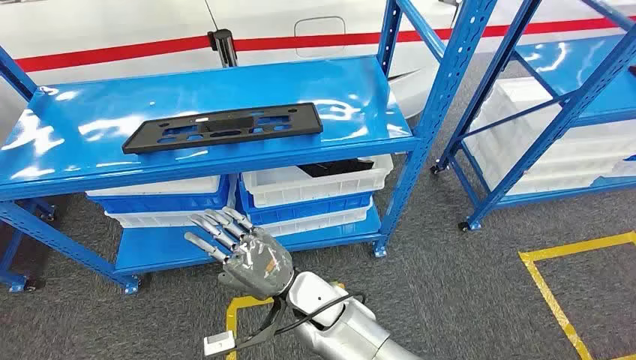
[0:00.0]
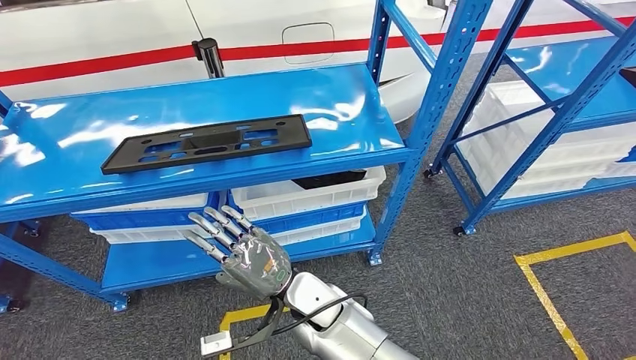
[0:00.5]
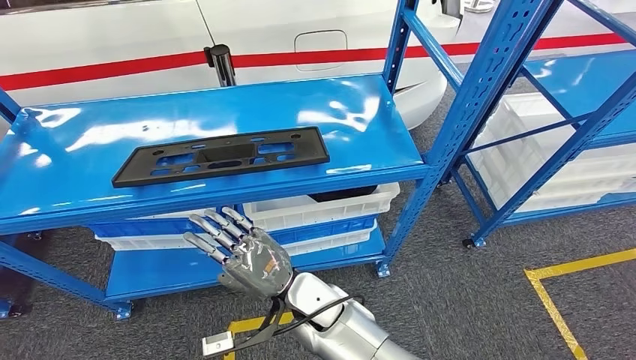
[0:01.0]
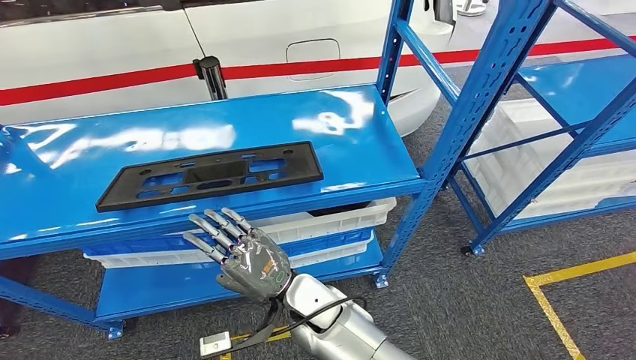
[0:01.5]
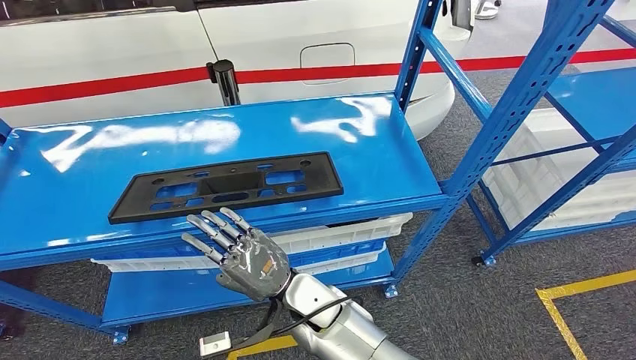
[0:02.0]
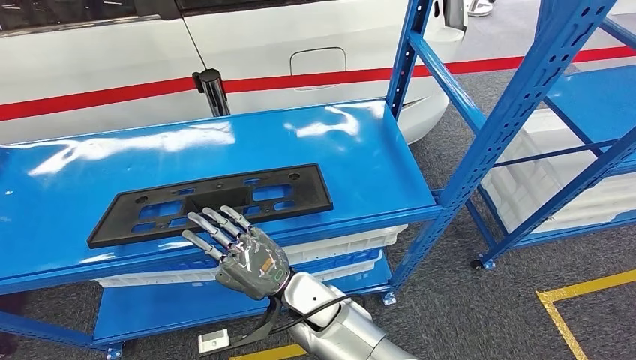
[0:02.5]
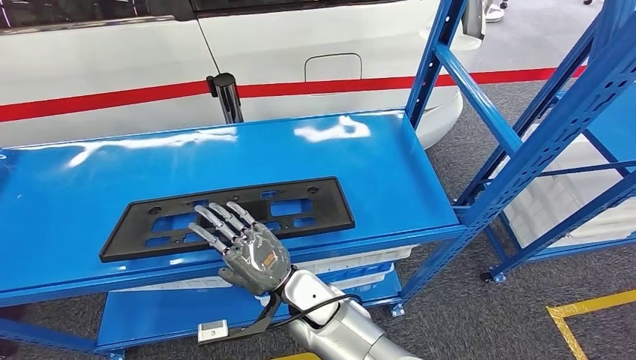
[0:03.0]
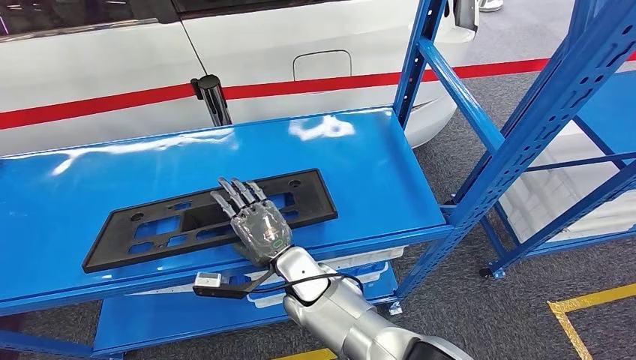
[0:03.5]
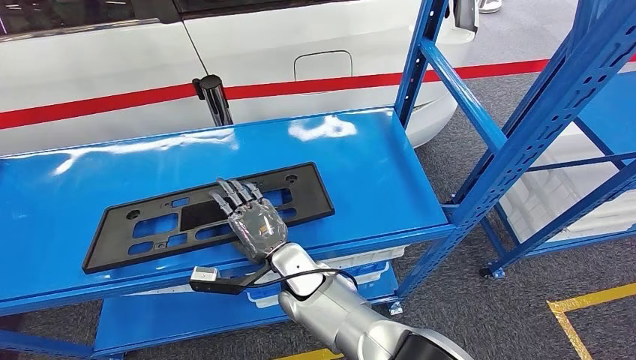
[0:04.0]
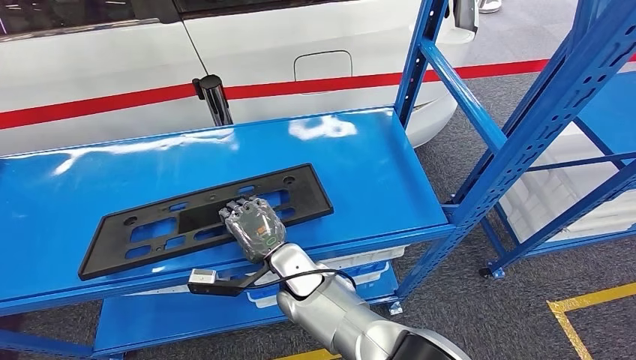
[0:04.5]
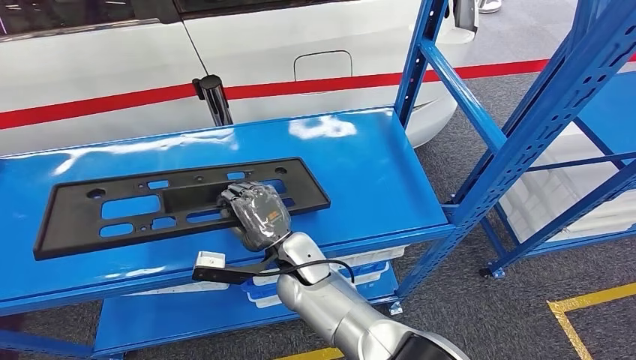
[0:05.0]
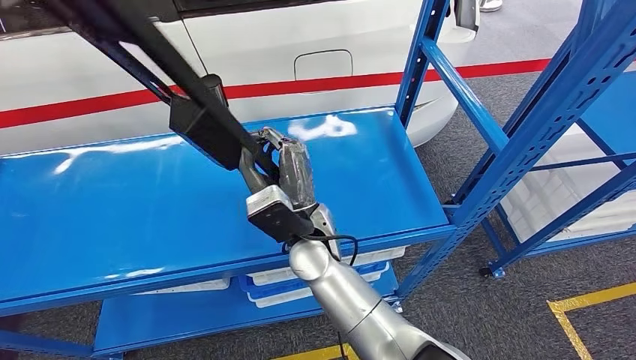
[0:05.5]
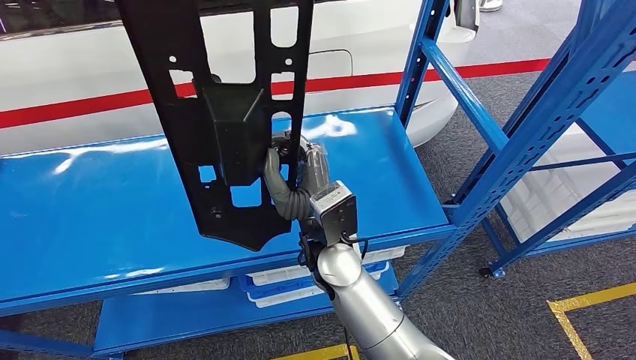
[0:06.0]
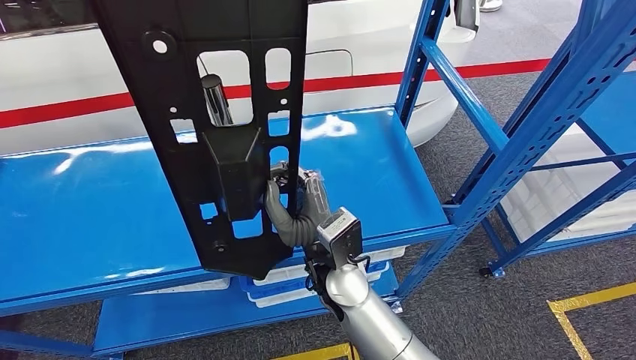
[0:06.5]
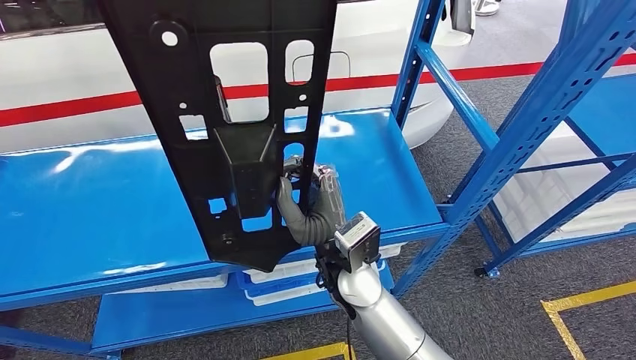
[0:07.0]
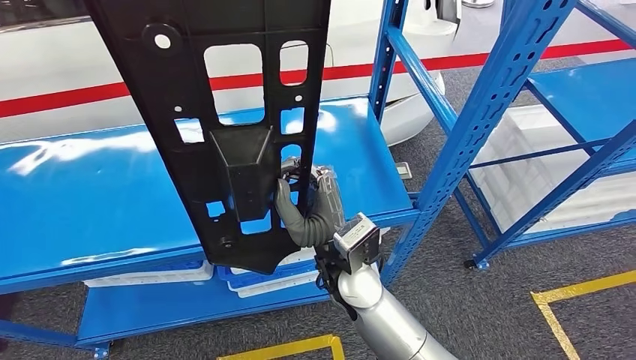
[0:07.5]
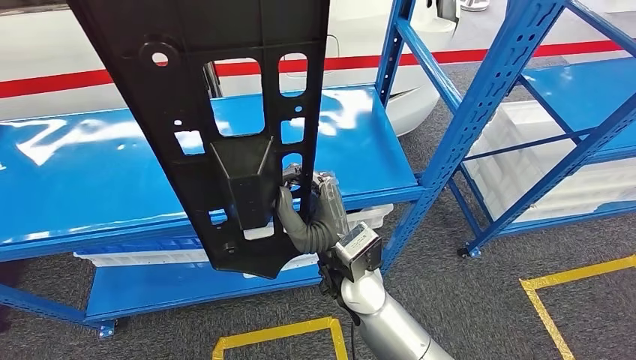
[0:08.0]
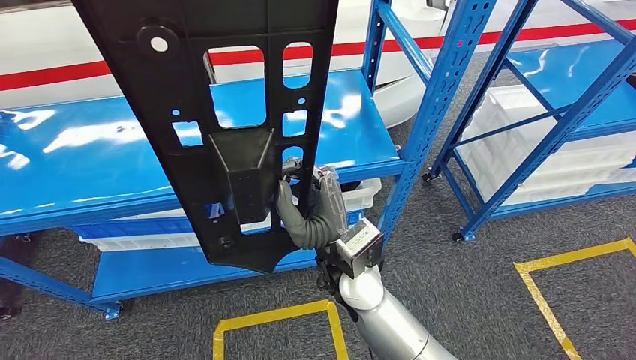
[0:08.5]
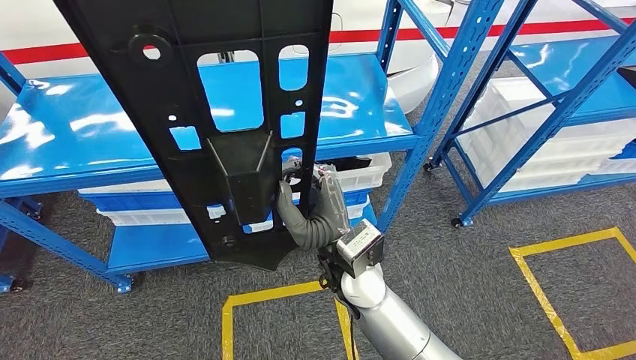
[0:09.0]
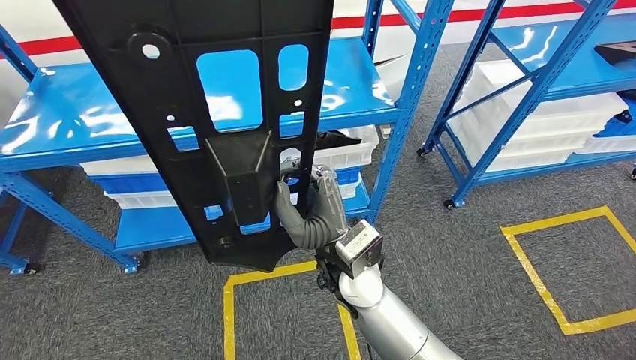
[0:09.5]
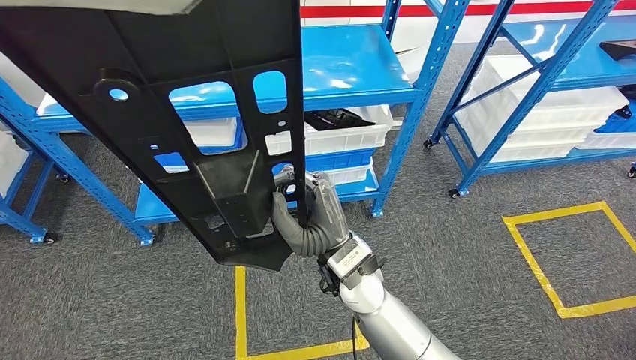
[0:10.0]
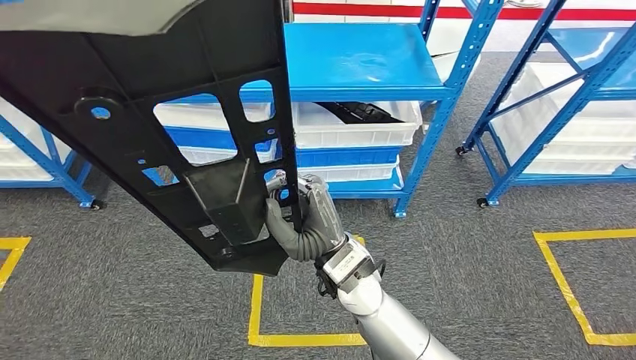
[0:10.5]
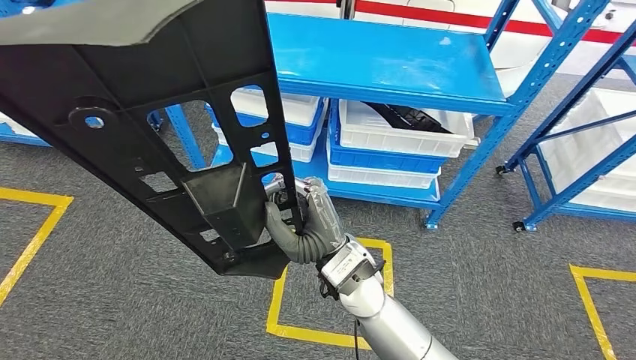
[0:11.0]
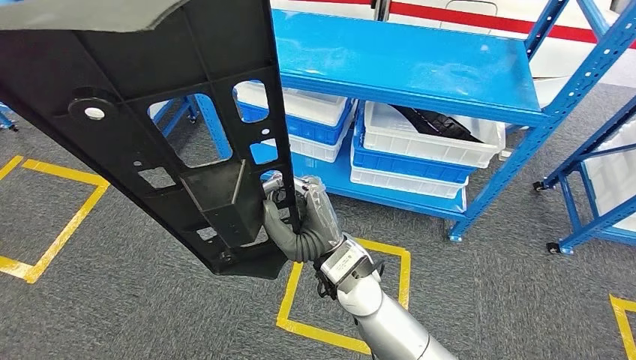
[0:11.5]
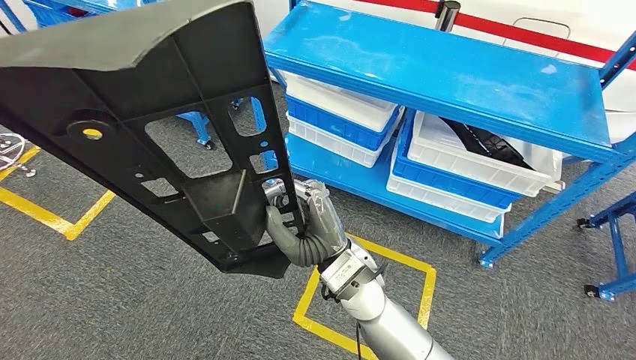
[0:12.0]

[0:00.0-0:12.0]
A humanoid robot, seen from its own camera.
Step, 0:00.0 to 0:11.5: Pick up the large material from the shelf.

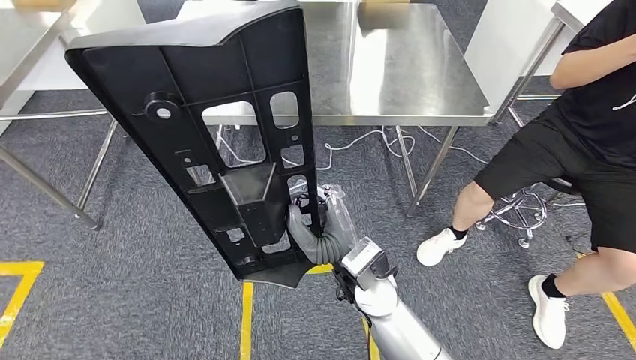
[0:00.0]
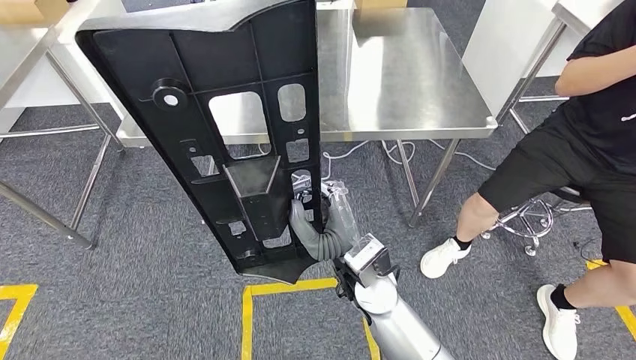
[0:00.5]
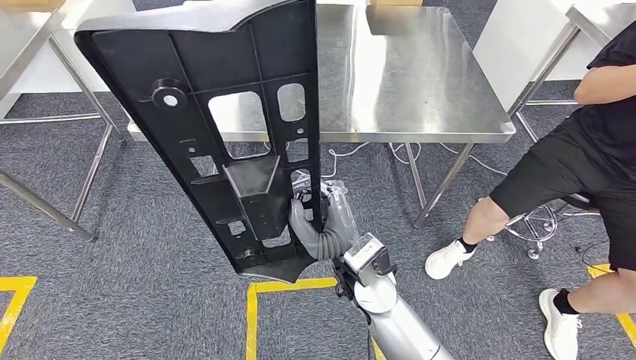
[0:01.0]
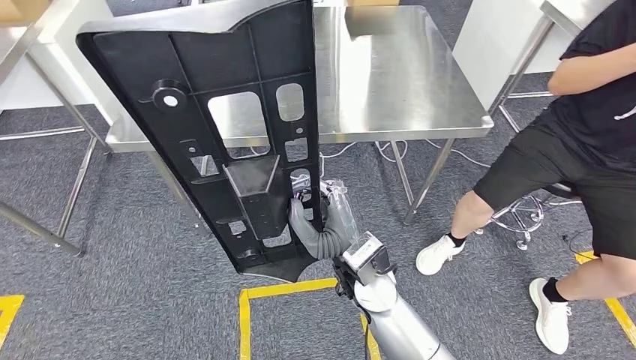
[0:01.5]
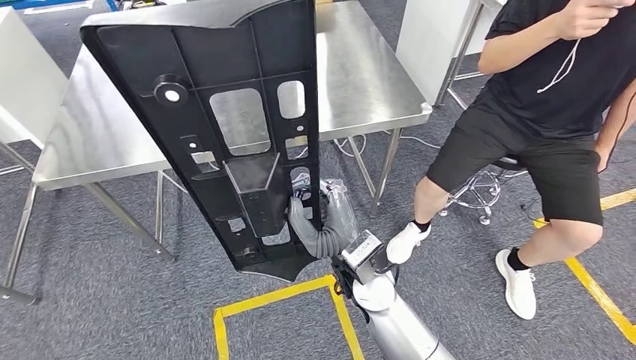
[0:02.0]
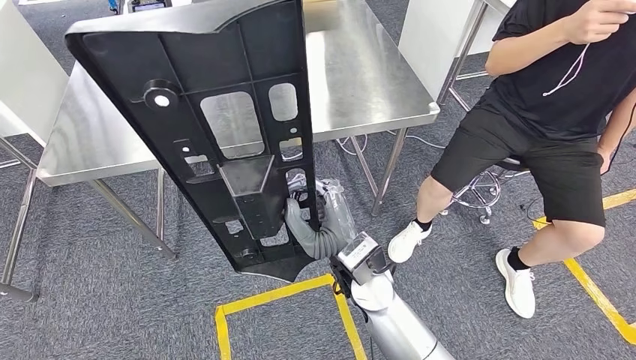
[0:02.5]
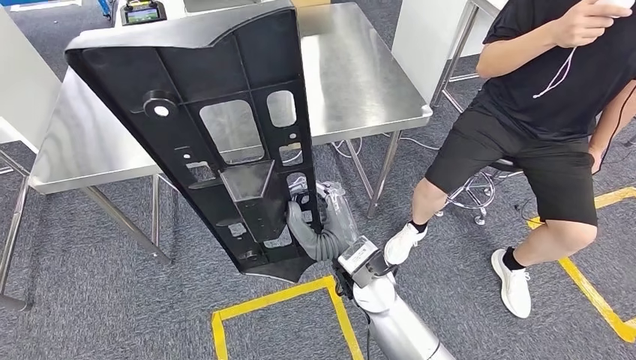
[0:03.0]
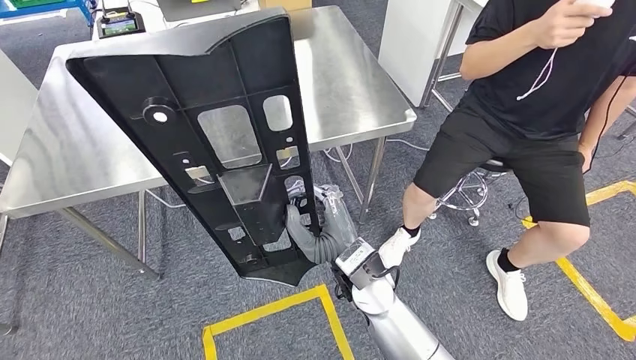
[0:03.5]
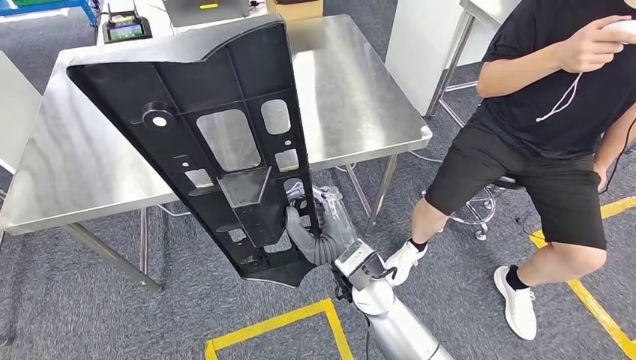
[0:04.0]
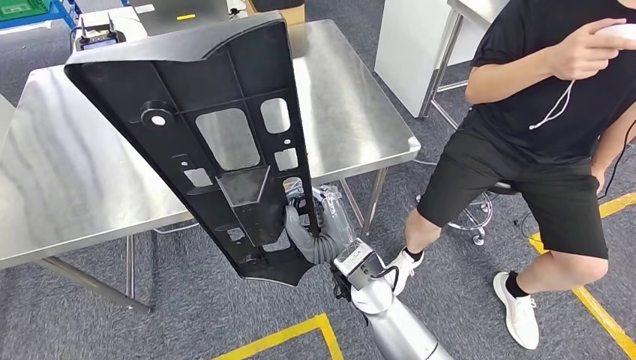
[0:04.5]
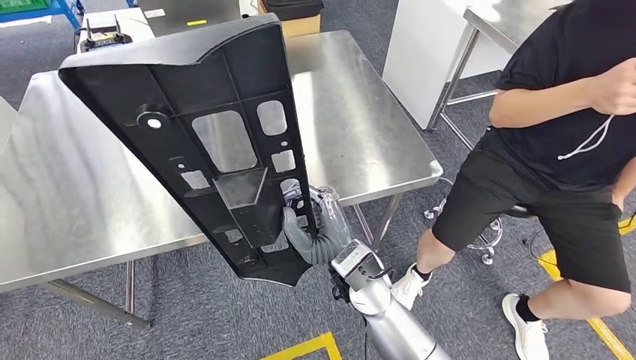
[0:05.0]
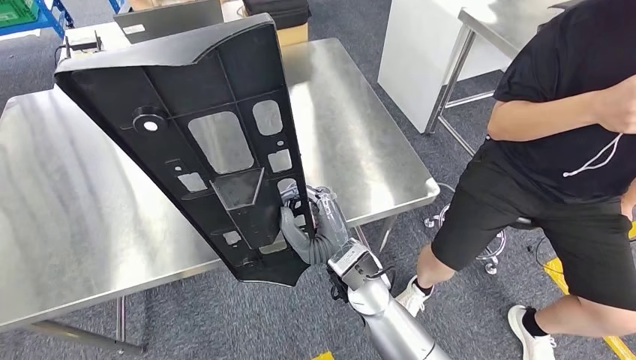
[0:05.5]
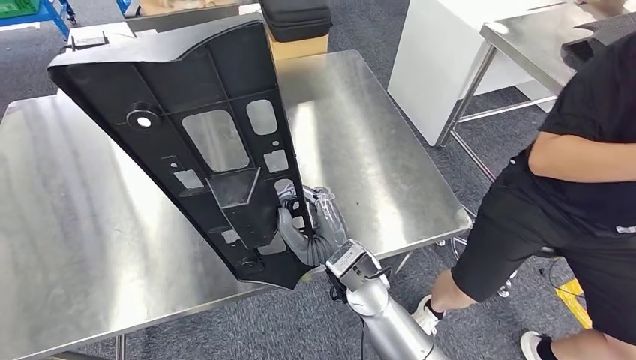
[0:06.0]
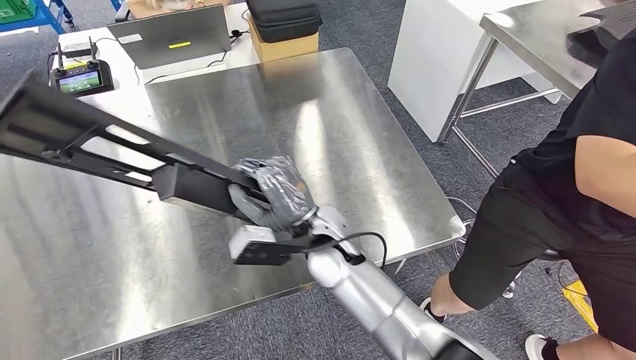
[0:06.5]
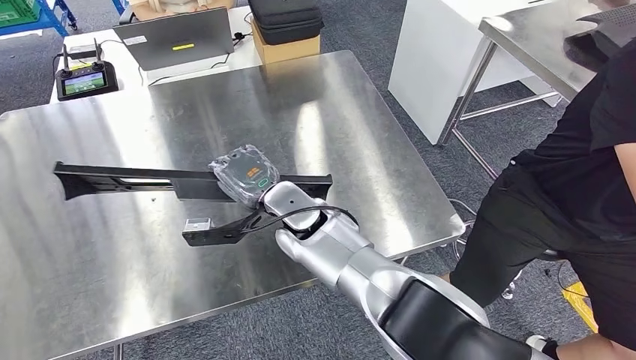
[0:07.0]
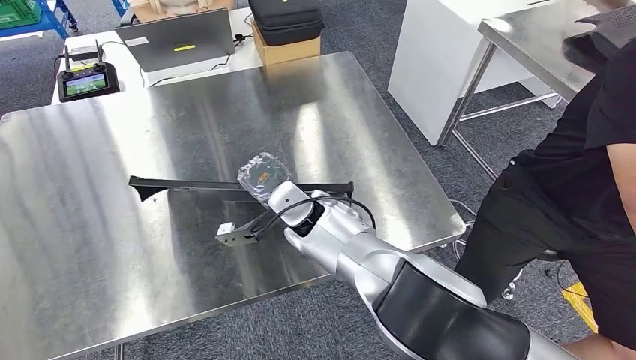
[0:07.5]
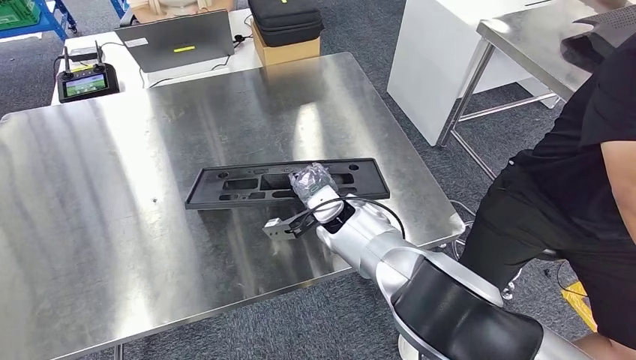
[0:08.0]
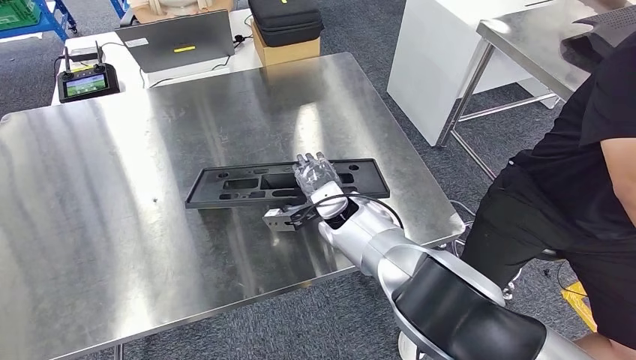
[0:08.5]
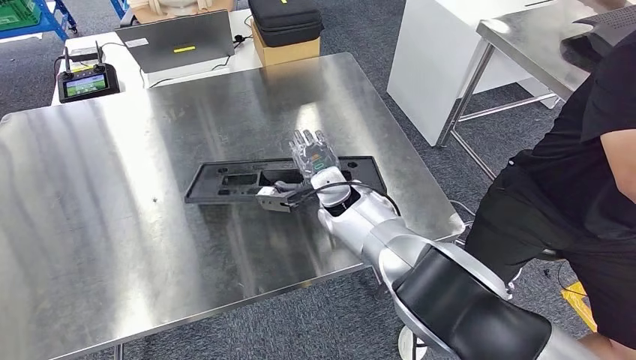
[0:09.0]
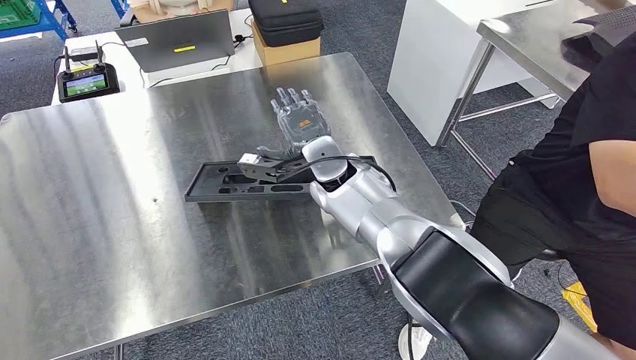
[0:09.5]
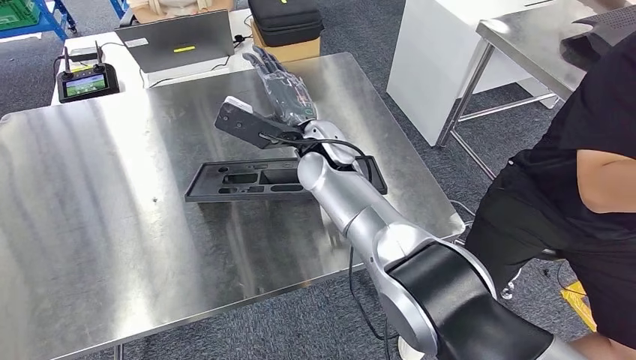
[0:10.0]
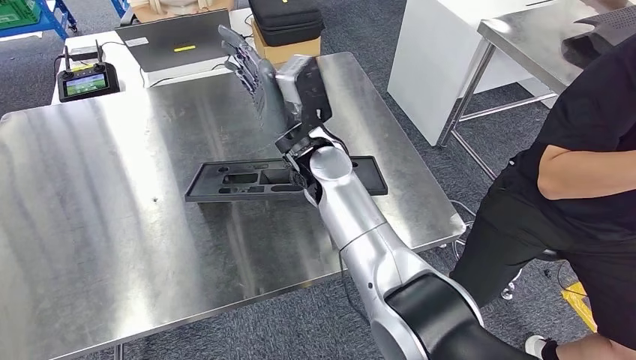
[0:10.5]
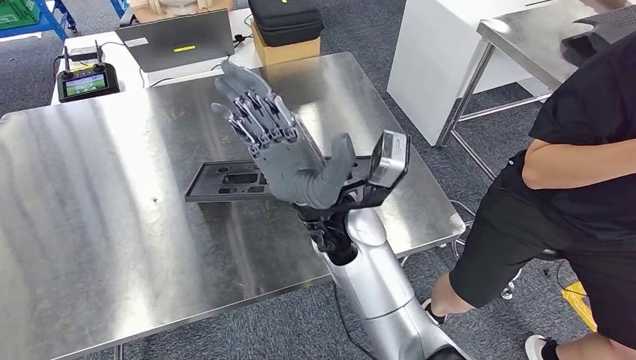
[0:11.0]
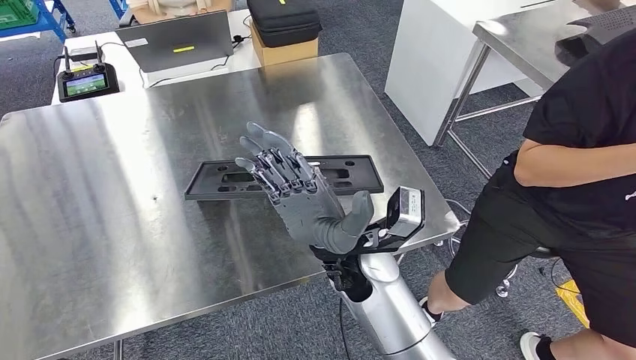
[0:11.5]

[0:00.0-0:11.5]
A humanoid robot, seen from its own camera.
Step, 0:00.0 to 0:03.0: Move the large material to the workbench.
0:07.5 to 0:09.5: The right hand is displaced upward by roughly 5 cm.
